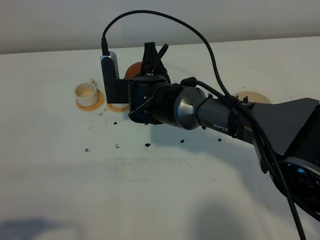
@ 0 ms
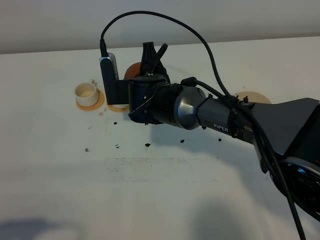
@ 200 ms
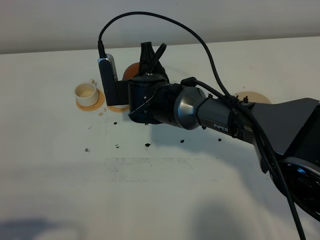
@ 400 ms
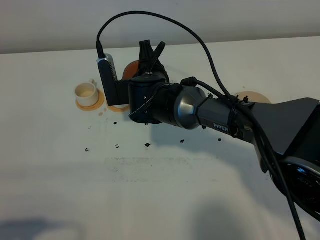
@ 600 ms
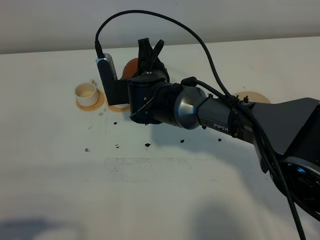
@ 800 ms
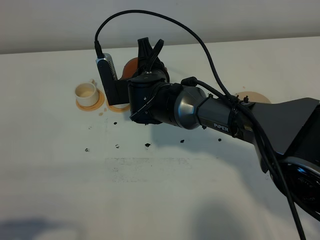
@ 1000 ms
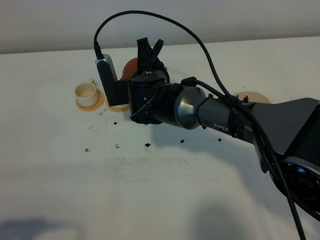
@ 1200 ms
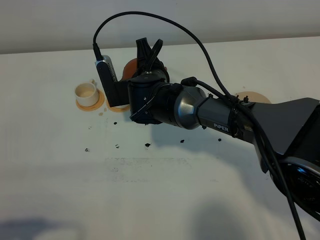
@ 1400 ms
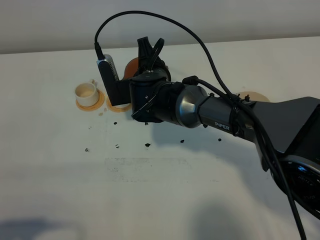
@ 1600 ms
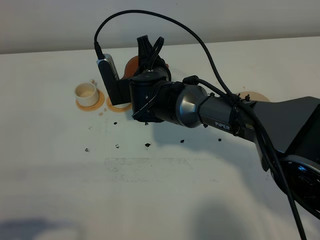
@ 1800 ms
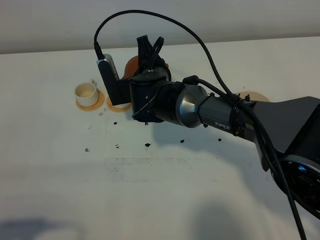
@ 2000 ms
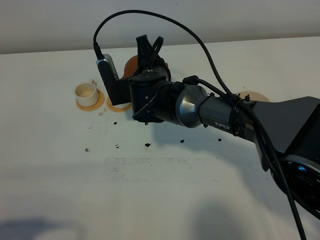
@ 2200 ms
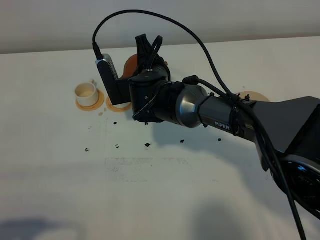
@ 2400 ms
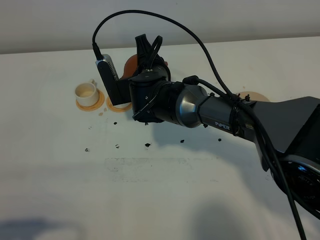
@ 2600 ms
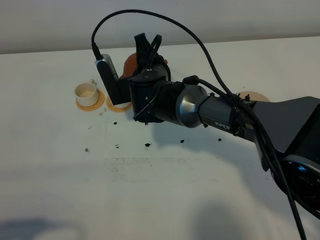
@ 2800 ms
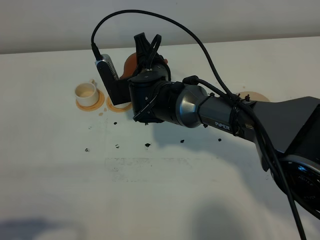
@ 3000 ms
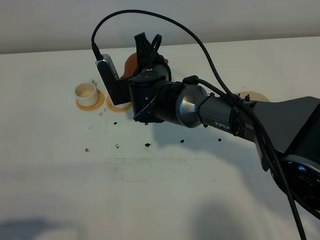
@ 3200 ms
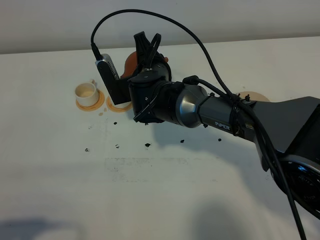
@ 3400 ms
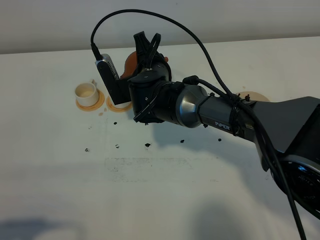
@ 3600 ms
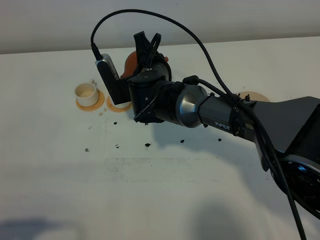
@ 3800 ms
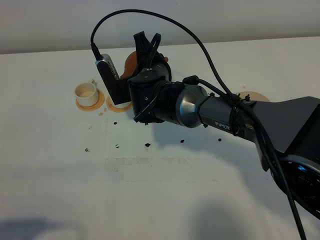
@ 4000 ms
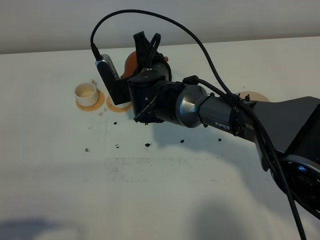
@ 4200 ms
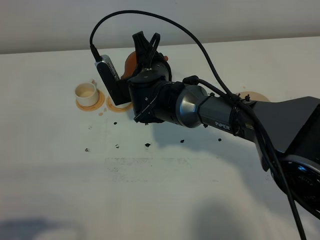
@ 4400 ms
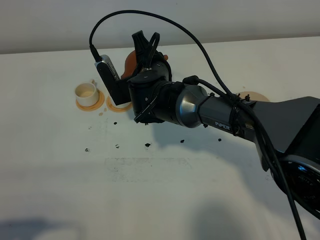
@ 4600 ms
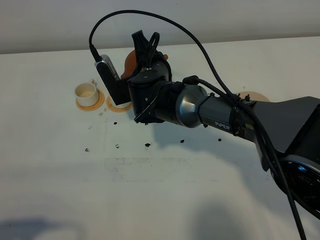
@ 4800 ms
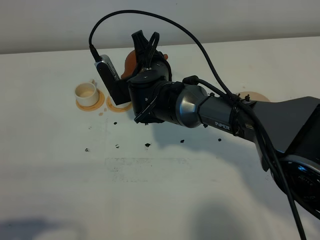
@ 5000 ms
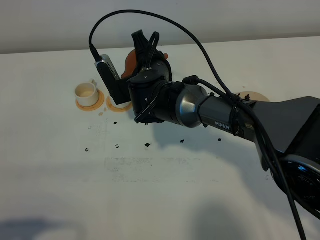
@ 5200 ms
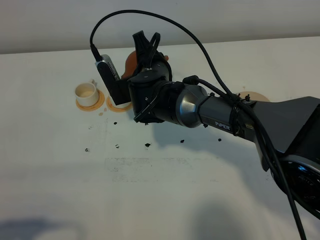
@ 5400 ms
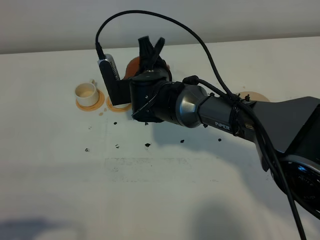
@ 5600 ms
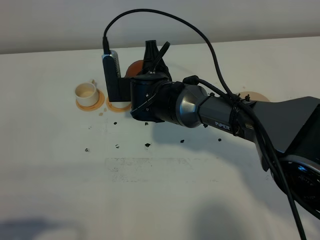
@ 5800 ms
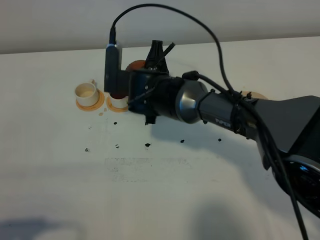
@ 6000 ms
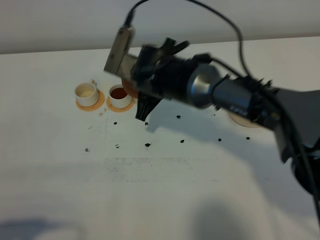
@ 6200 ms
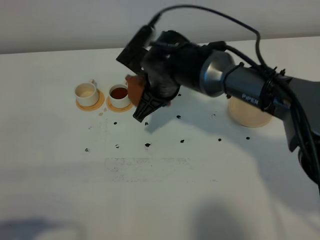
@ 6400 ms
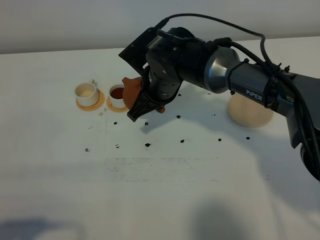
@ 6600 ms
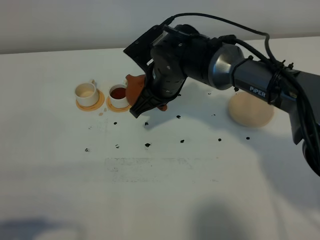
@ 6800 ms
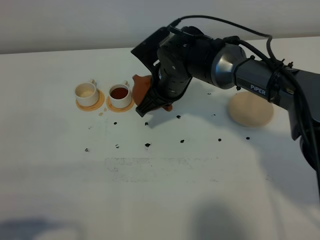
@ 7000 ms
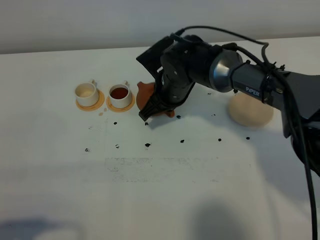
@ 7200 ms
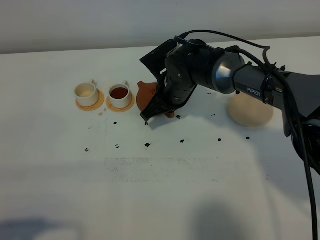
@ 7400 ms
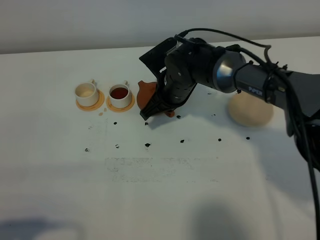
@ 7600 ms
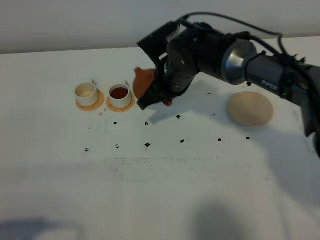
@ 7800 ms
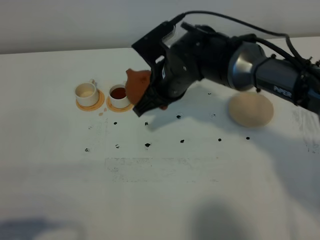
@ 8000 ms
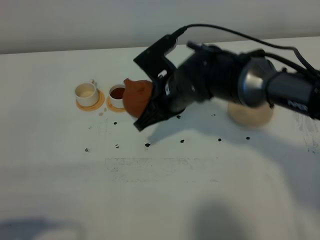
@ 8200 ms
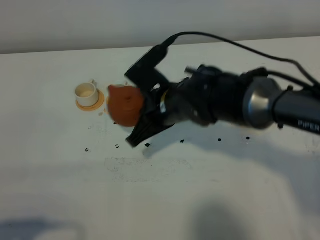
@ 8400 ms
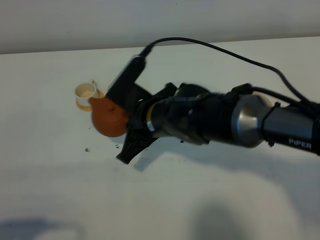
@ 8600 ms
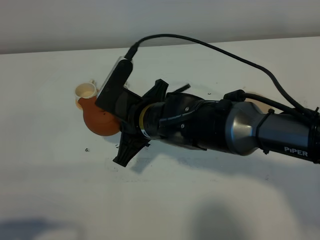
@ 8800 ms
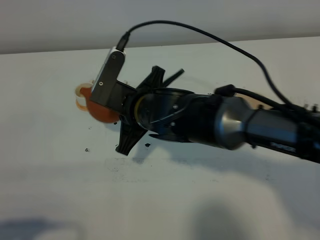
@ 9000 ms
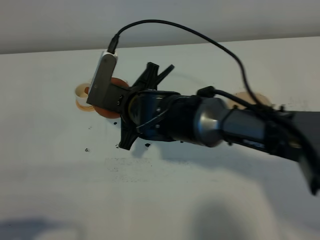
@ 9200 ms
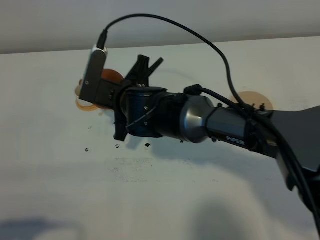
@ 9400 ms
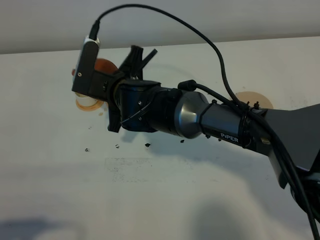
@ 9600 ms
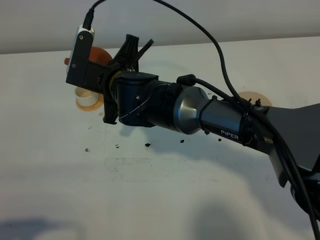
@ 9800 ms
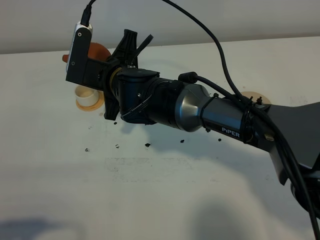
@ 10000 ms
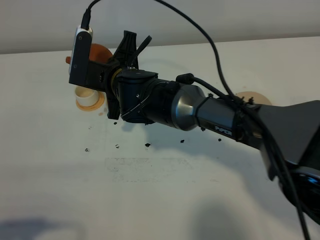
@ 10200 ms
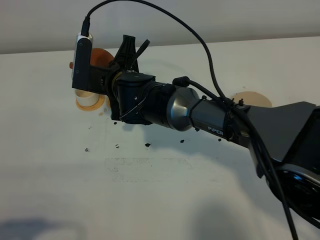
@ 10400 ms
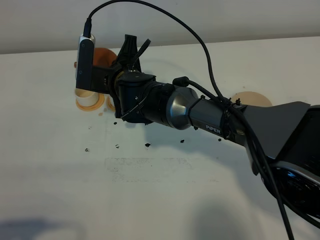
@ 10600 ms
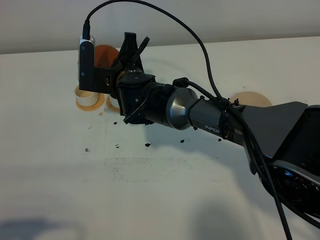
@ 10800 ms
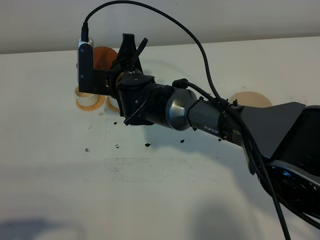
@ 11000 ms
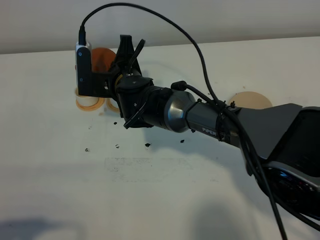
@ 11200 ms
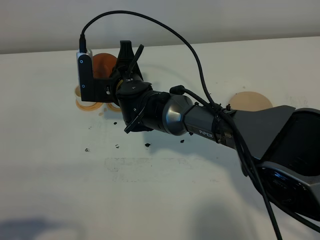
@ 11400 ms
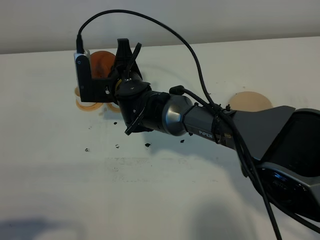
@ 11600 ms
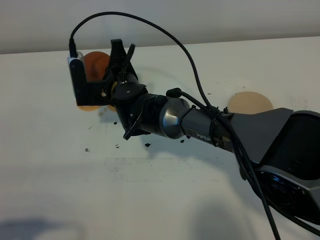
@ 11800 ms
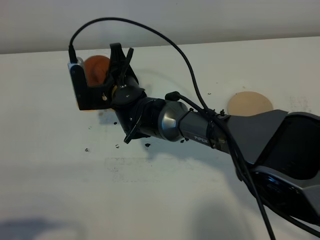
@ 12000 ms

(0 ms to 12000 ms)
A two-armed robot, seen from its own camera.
Task of the whole recording: grasp the brown teapot and pour the tea into the two white teacups one by one, put the brown teapot back in its original place.
0 ms - 3000 ms: The grippers stay close to where they were, moving slightly.
3000 ms - 4400 ms: Both grippers stay put.
6000 ms - 7600 ms: The right gripper heads to the right, covering some 5 cm.
7600 ms - 9000 ms: The right gripper travels backward and to the left by approximately 10 cm.
9000 ms - 10400 ms: The right gripper moves forward, some 10 cm.

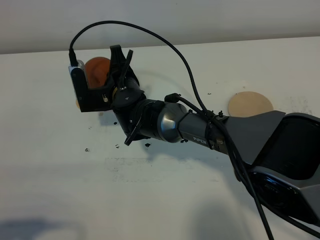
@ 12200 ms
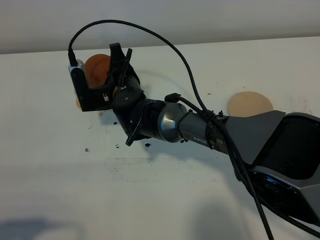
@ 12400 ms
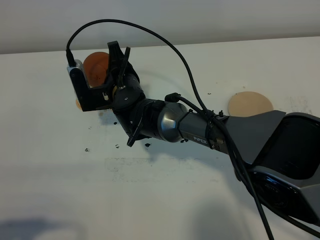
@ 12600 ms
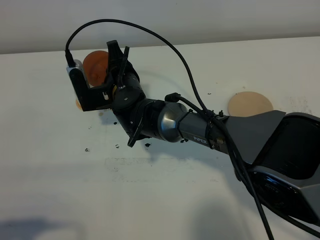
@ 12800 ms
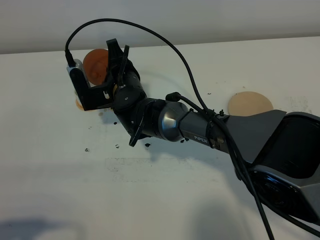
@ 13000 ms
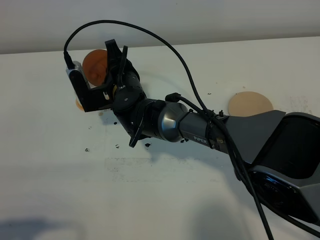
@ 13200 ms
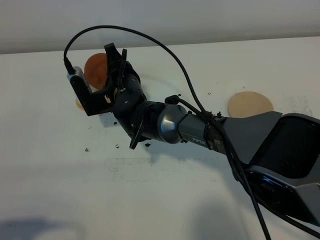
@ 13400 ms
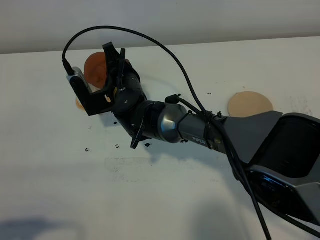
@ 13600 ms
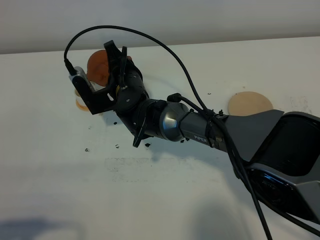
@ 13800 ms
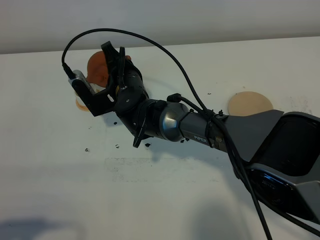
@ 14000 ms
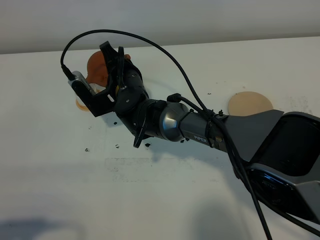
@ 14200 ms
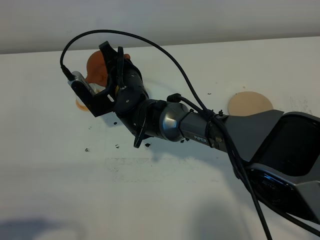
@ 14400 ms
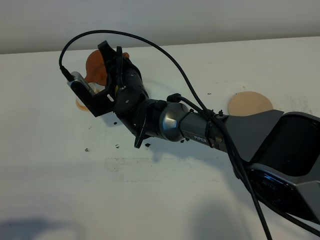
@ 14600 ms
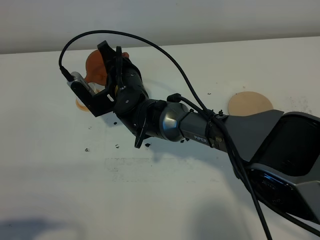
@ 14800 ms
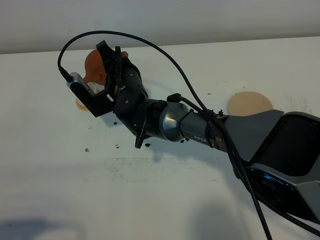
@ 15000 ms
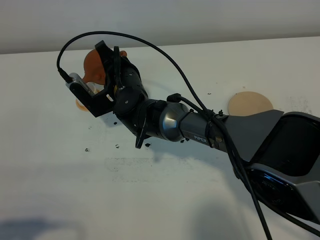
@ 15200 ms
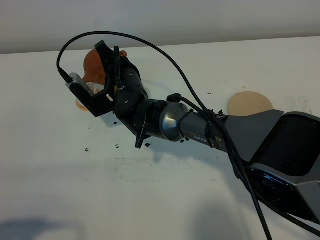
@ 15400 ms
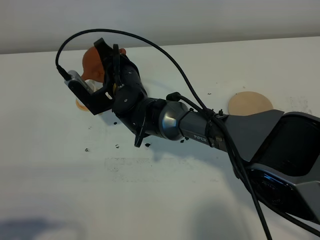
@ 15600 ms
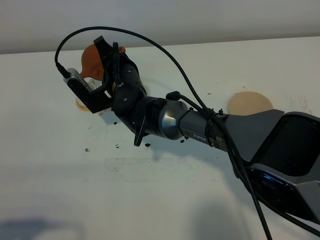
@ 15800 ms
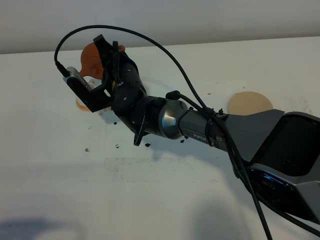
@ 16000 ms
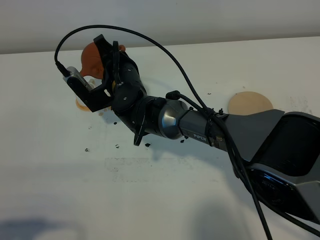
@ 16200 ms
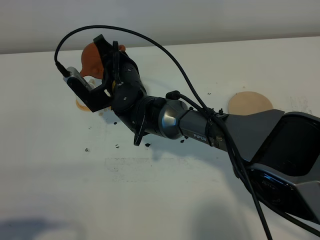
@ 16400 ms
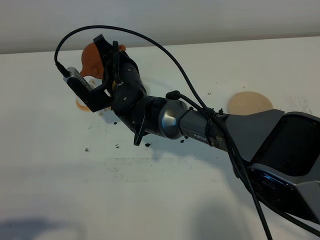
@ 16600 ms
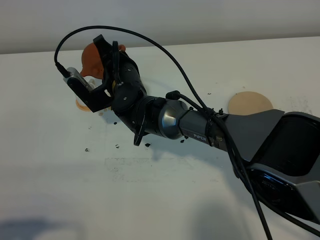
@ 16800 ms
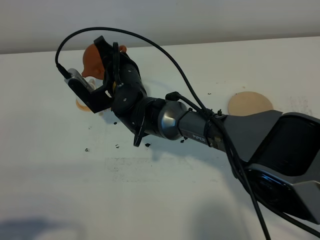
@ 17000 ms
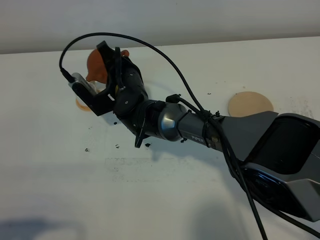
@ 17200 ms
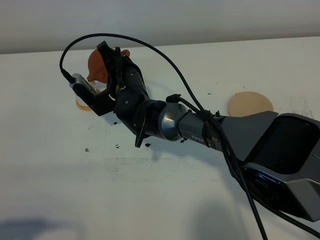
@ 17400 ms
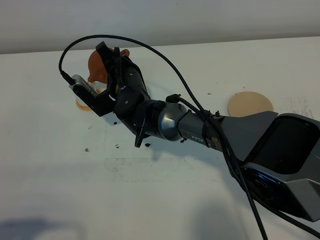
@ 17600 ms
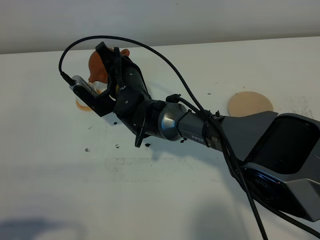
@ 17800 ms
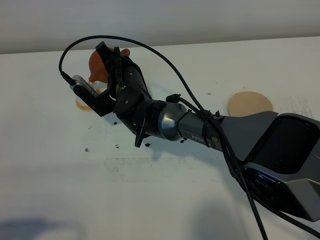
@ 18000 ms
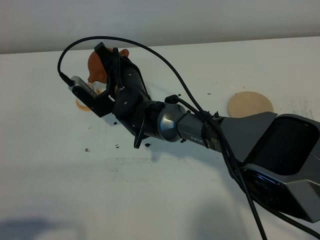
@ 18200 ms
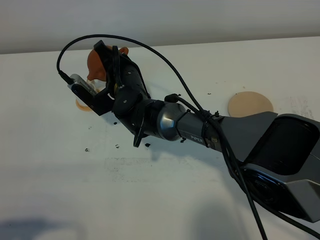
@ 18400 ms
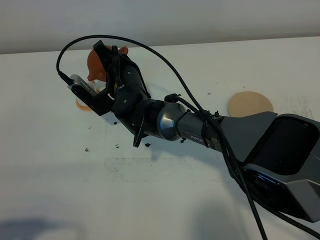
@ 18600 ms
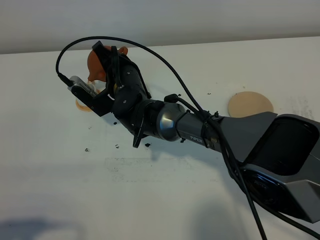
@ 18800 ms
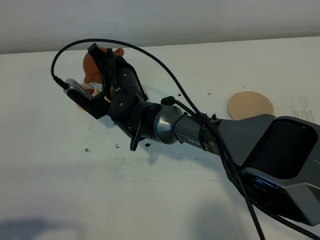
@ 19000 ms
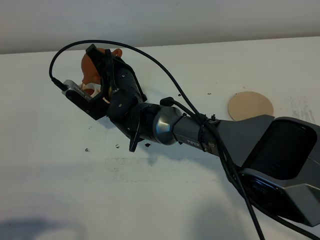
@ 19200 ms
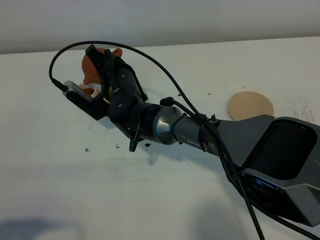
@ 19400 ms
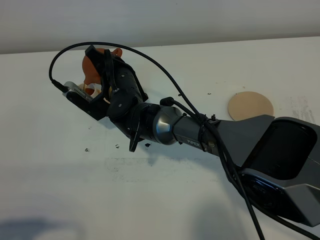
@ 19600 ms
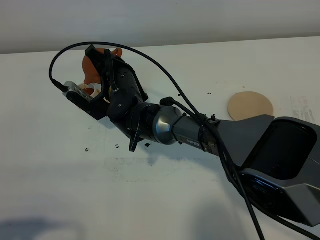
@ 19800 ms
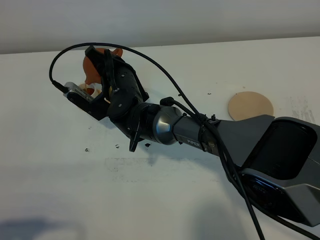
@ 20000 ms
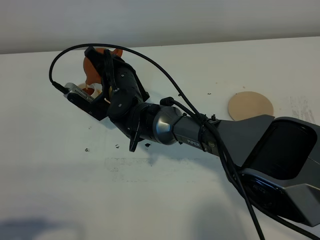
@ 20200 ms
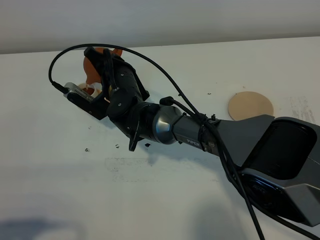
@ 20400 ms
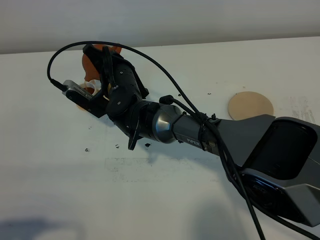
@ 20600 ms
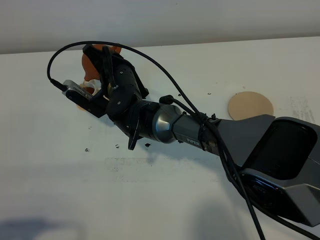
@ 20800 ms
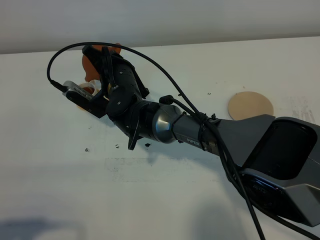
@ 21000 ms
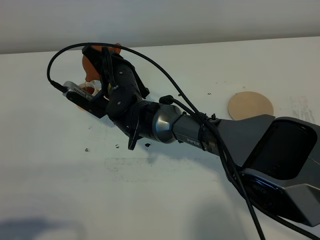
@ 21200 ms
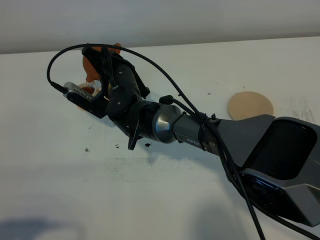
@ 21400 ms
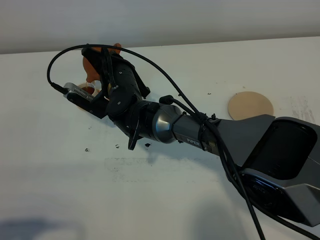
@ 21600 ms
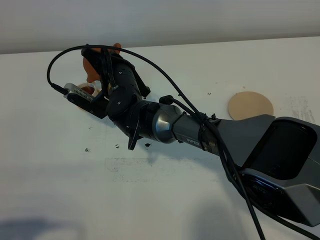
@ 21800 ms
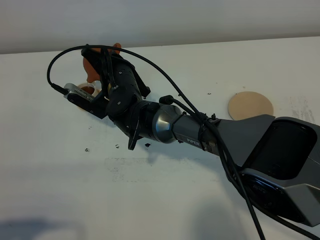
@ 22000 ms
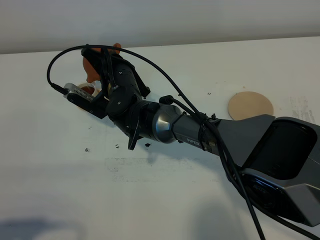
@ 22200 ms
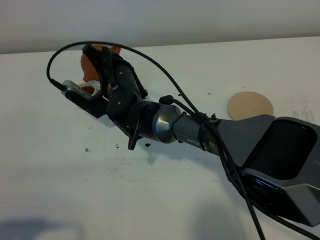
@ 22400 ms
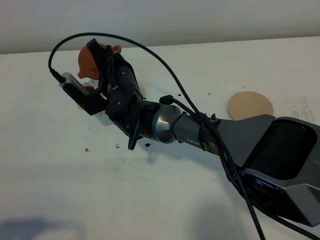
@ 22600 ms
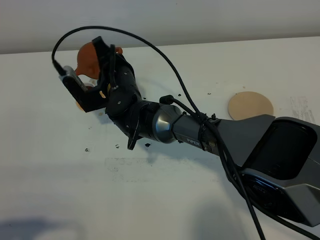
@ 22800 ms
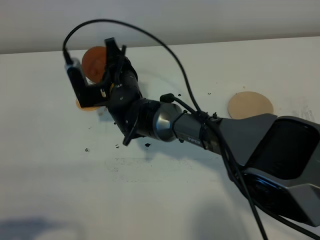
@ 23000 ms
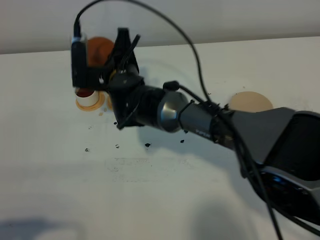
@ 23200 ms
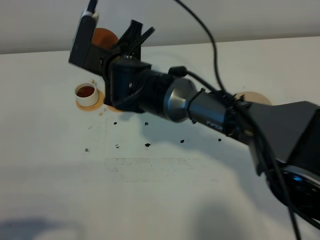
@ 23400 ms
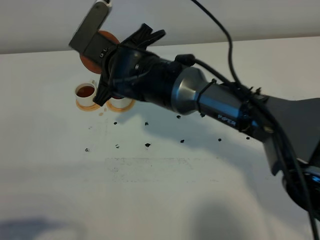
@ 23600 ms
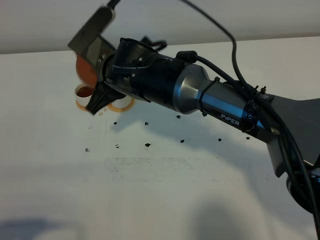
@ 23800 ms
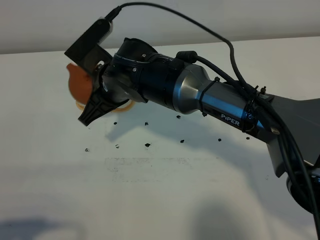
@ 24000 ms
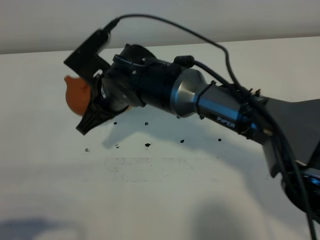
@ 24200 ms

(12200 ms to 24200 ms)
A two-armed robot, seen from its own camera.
Task of the whole recording: grasp the brown teapot and pour the tea into the two white teacups one by one, put the brown teapot back in its original place.
Step, 12200 ms - 23400 ms: Pour tea into the teacup with the right gripper.
12200 ms - 13800 ms: The grippers stay close to where they were, moving slightly.
13800 ms - 15200 ms: The grippers make only small movements.
15200 ms - 16600 ms: The two grippers keep their place.
16600 ms - 19800 ms: The grippers stay close to where they were, moving slightly.
19800 ms - 21200 ms: Neither gripper changes place.
21200 ms - 22600 ms: The grippers stay close to where they were, moving slightly.
22600 ms - 24200 ms: The right gripper goes about 10 cm backward and upward.
